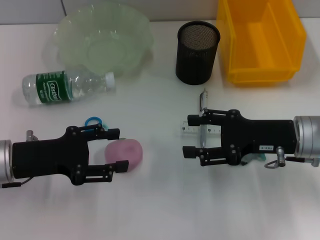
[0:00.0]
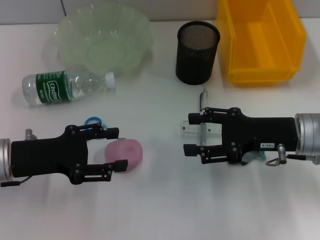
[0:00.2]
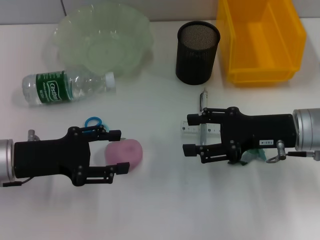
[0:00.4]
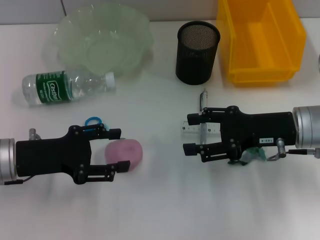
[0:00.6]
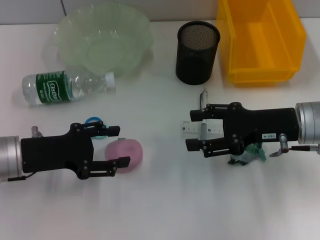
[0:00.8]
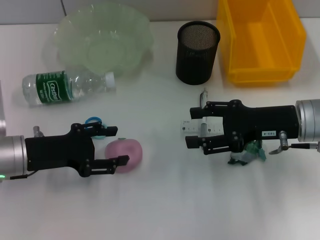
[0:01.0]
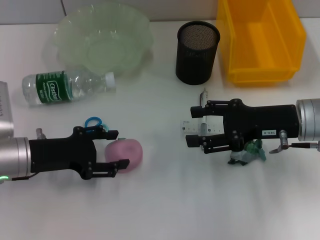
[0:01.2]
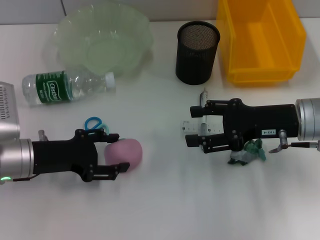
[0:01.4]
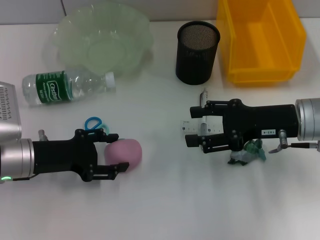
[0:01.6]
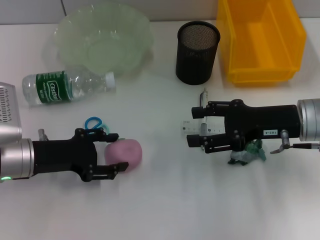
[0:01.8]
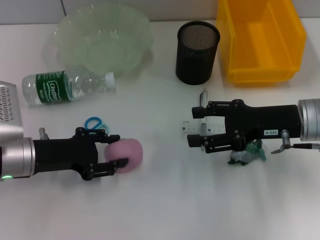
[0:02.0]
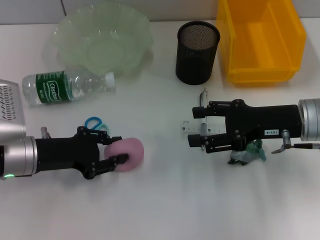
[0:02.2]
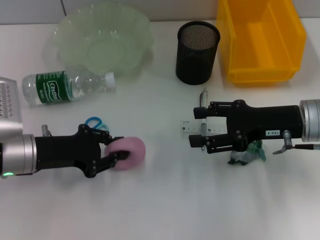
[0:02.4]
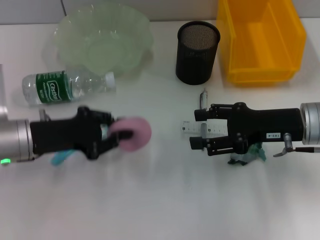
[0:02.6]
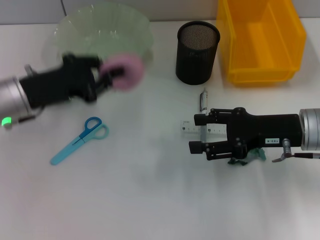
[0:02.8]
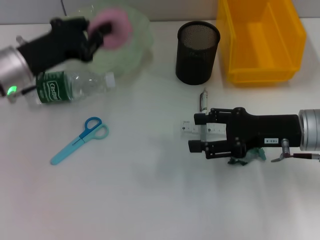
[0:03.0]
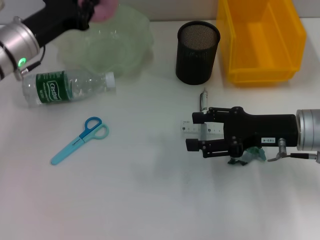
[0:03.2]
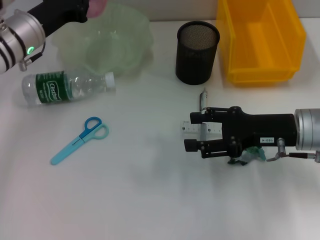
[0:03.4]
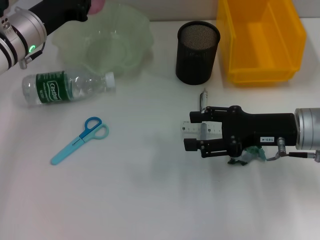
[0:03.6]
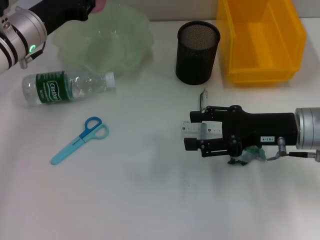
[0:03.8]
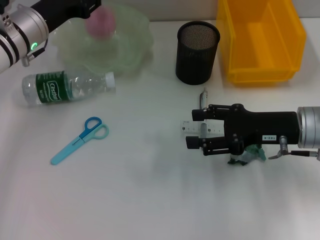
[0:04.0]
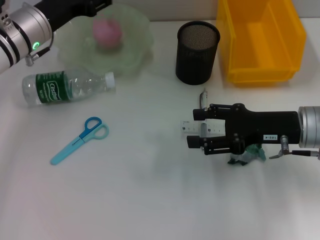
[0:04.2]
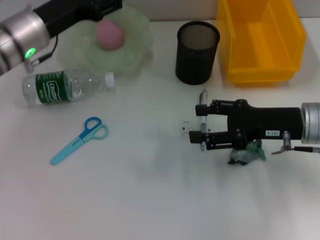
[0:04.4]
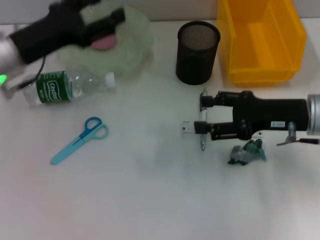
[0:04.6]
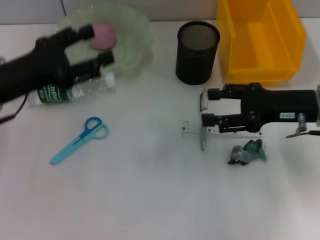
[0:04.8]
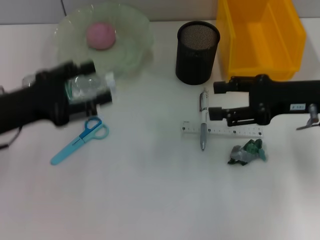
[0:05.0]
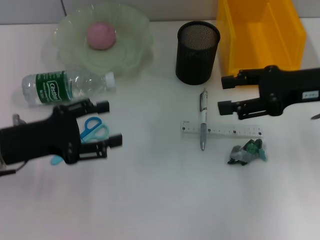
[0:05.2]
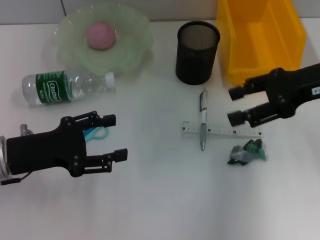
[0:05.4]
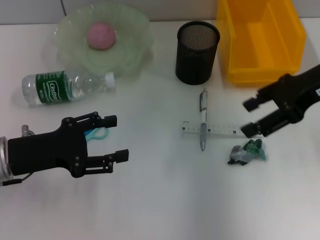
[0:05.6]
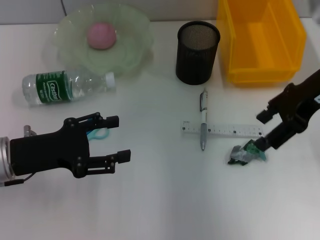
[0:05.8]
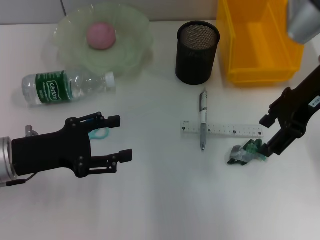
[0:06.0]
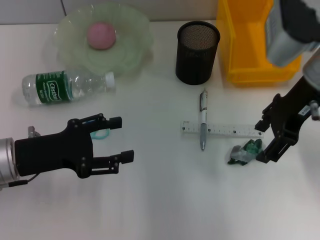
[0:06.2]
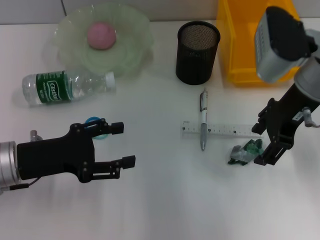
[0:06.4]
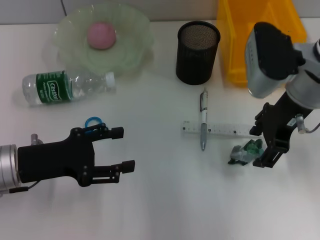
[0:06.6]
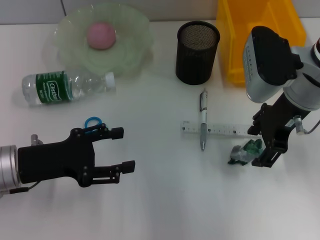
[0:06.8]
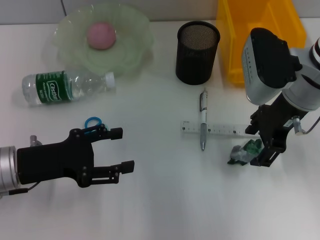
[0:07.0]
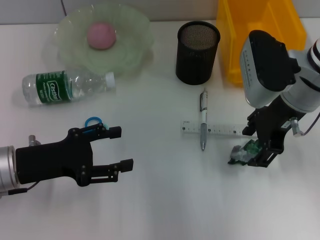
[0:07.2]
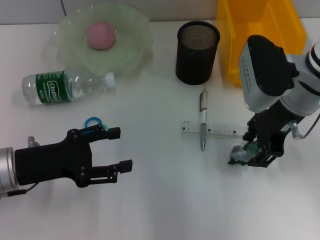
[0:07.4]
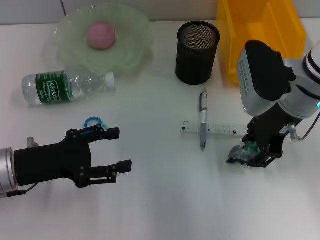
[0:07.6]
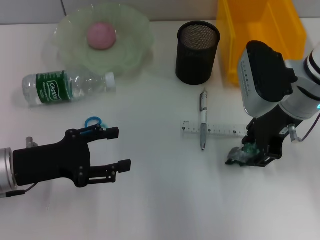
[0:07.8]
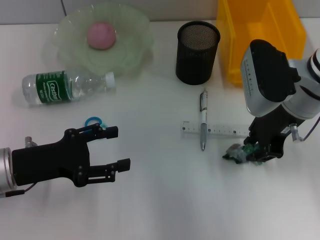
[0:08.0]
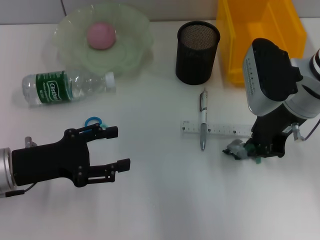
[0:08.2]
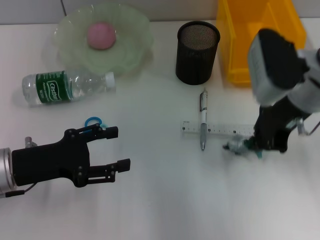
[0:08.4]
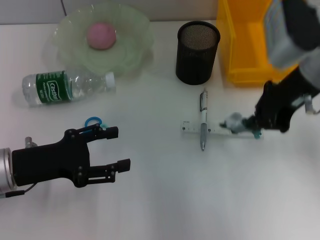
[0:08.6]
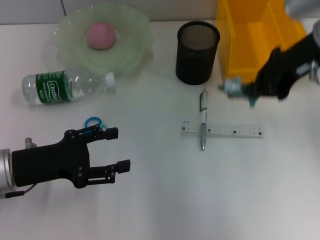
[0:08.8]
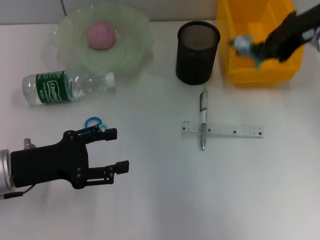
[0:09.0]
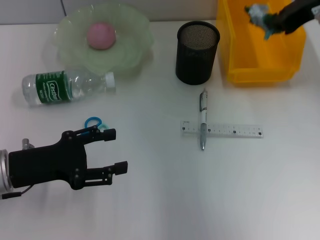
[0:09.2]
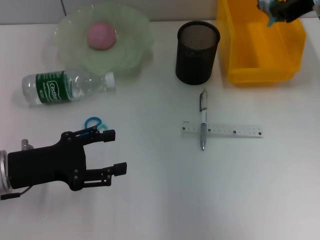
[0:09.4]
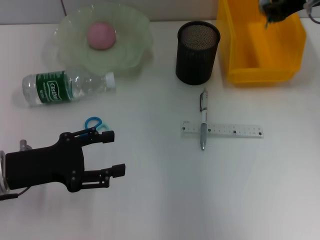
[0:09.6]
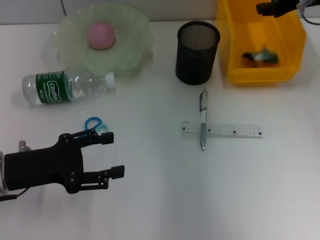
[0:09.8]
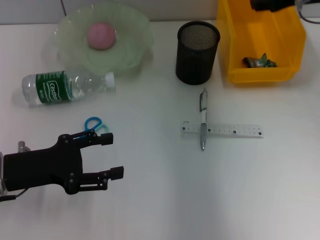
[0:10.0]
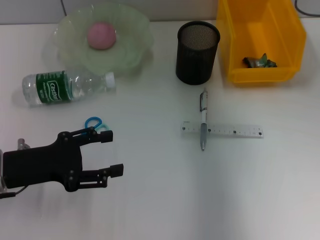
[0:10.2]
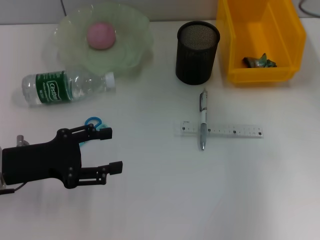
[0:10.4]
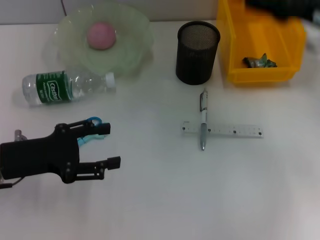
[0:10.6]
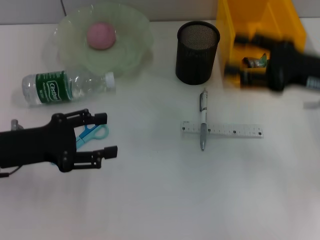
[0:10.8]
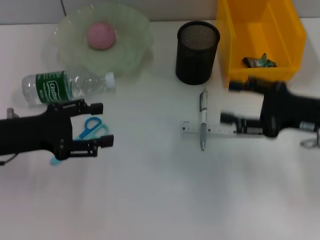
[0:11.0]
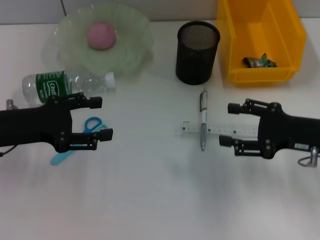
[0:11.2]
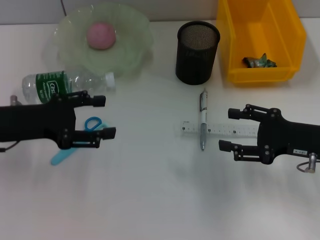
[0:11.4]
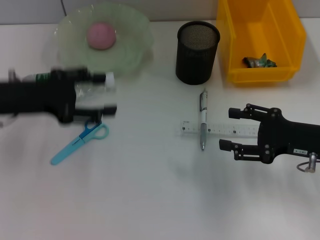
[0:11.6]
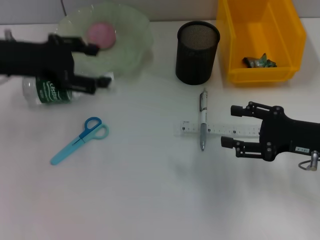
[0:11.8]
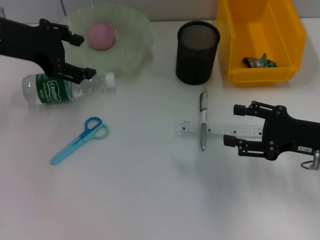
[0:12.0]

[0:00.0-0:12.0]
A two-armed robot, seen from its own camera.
Step, 0.0 to 2.2 s: Grab the peach with the left hand.
Step, 2.4 to 4.0 s: Place the peach into the fruit bowl with the left hand.
Step, 4.4 to 8.2 s: Grab the plastic with the right hand.
Step, 8.4 to 9.8 s: Place the plastic into the trash can with the right hand.
0.0 to 1.6 s: The grippers make only small movements.
1.6 to 3.0 s: The left gripper is displaced forward and upward by some 10 cm, and closes its fingers.
3.0 to 4.4 s: The left gripper opens its fingers.
4.4 to 6.0 s: The left gripper is displaced backward and downward by roughly 15 cm. Meanwhile the right gripper shifts about 15 cm upward and forward.
6.0 to 7.6 s: The right gripper moves downward, approximately 5 cm.
7.6 to 9.0 s: The right gripper is displaced upward by some 10 cm, and closes its fingers.
9.0 to 10.4 s: The right gripper ends up roughly 5 cm from where it was, and opens.
10.4 to 12.0 s: The left gripper is displaced upward and forward by roughly 20 cm, while the right gripper is displaced downward and backward by approximately 20 cm.

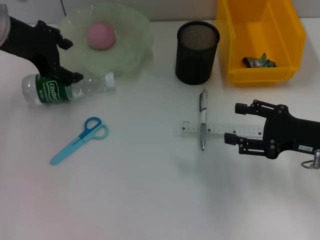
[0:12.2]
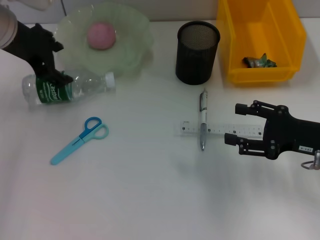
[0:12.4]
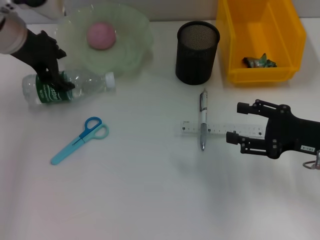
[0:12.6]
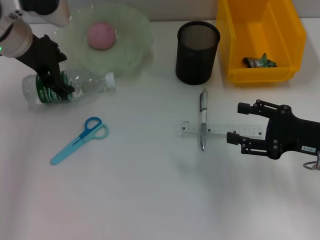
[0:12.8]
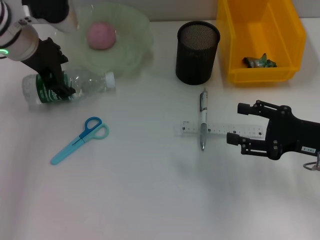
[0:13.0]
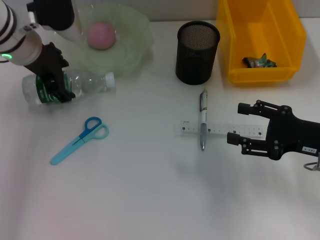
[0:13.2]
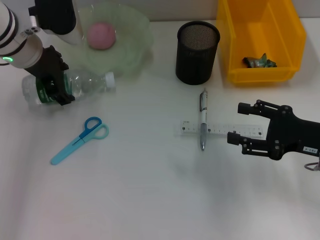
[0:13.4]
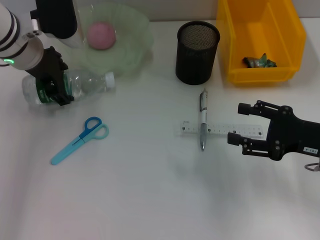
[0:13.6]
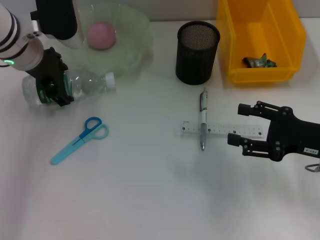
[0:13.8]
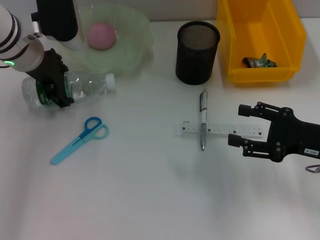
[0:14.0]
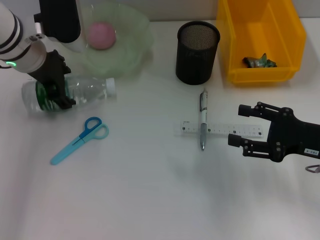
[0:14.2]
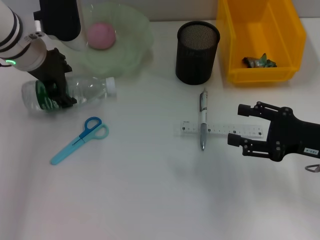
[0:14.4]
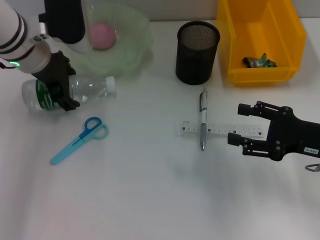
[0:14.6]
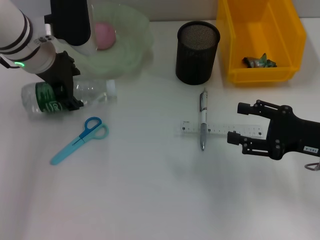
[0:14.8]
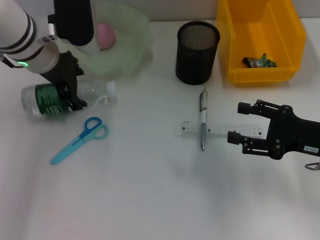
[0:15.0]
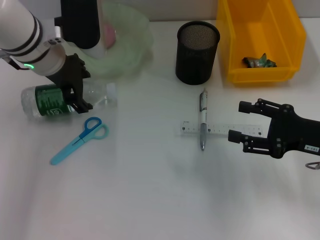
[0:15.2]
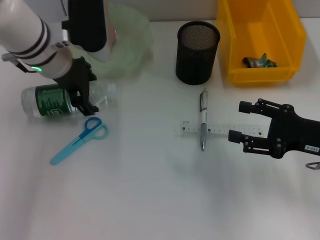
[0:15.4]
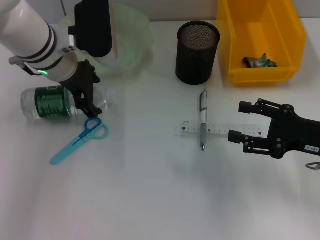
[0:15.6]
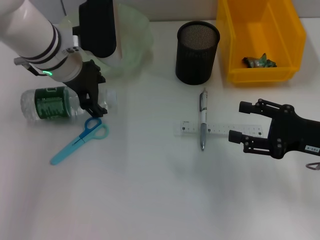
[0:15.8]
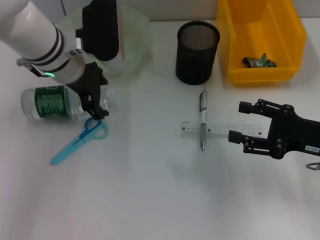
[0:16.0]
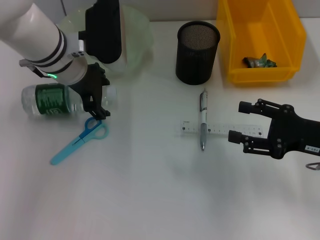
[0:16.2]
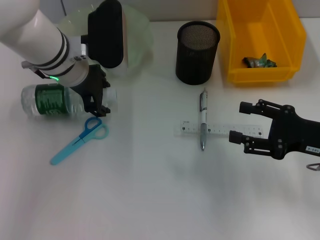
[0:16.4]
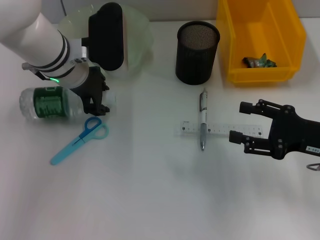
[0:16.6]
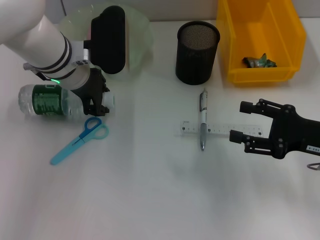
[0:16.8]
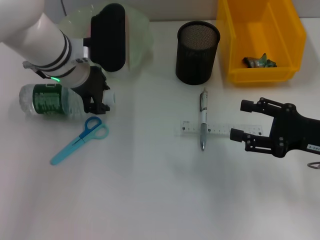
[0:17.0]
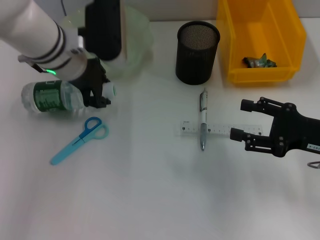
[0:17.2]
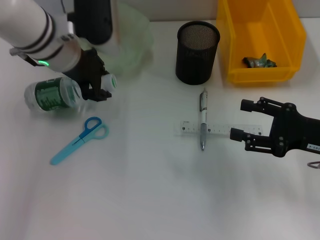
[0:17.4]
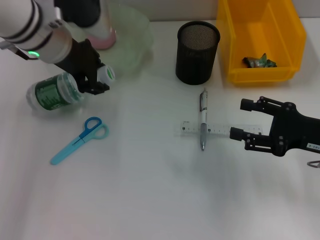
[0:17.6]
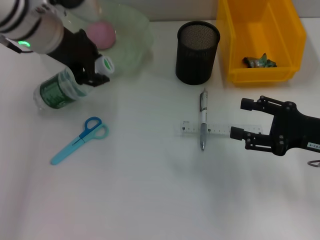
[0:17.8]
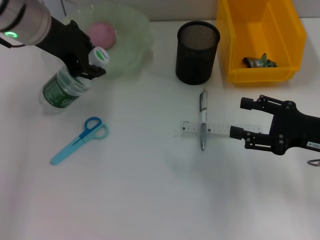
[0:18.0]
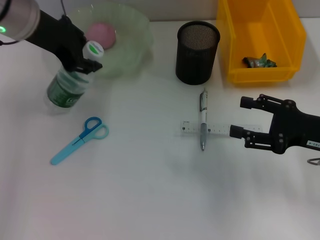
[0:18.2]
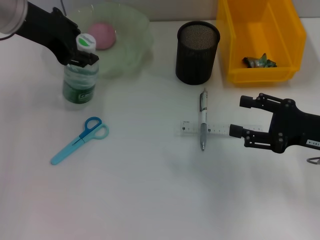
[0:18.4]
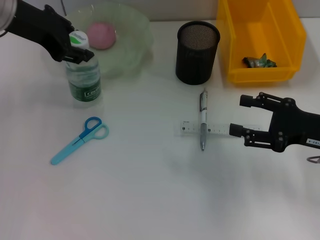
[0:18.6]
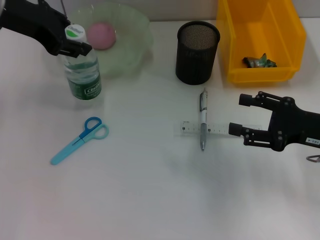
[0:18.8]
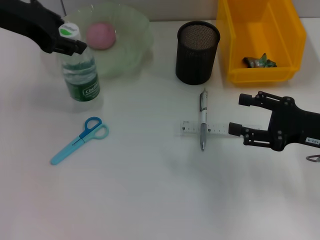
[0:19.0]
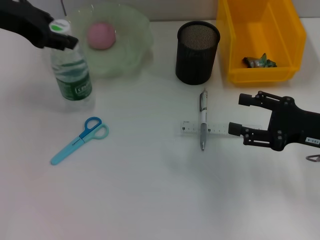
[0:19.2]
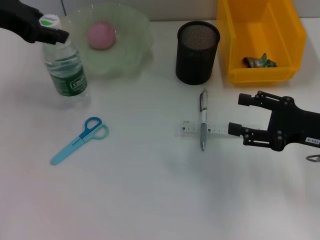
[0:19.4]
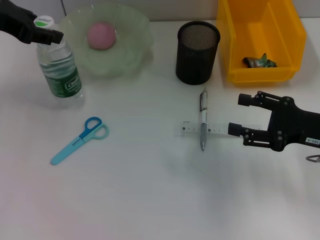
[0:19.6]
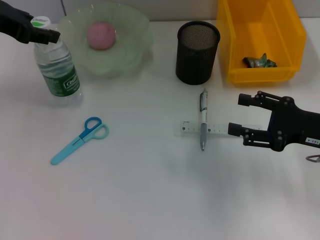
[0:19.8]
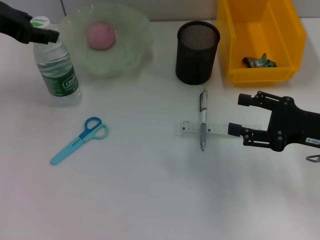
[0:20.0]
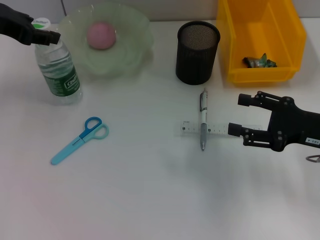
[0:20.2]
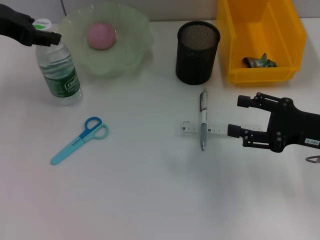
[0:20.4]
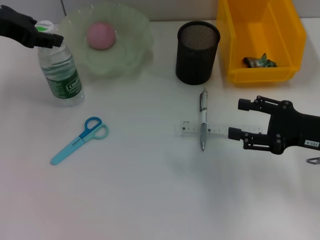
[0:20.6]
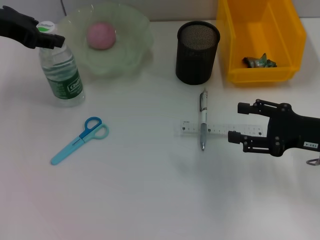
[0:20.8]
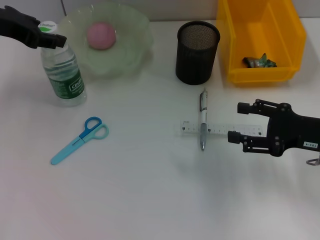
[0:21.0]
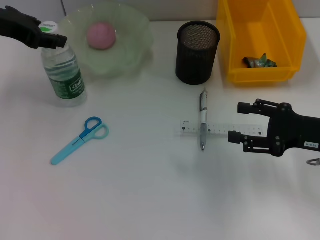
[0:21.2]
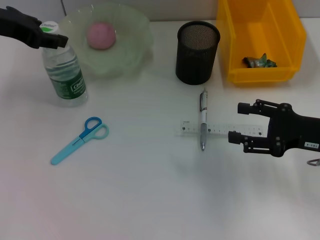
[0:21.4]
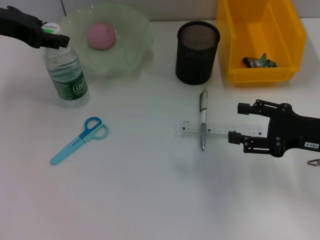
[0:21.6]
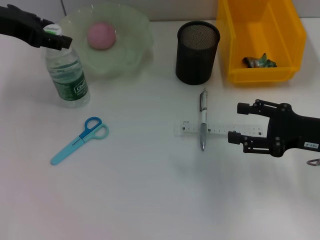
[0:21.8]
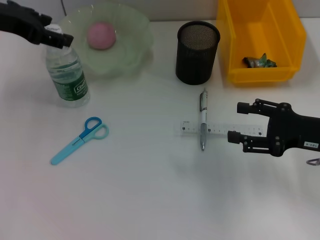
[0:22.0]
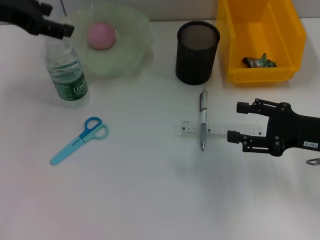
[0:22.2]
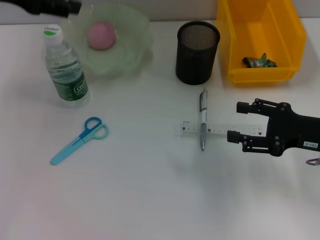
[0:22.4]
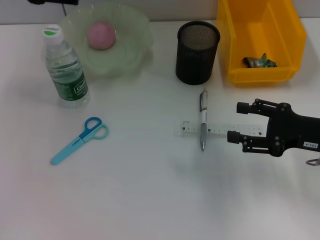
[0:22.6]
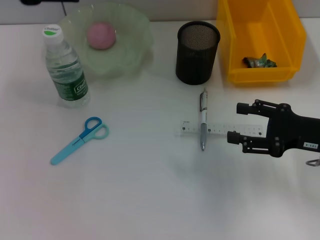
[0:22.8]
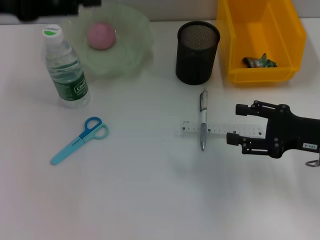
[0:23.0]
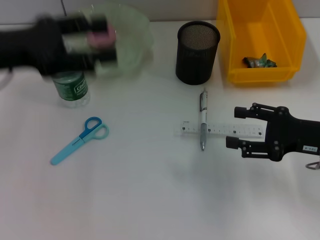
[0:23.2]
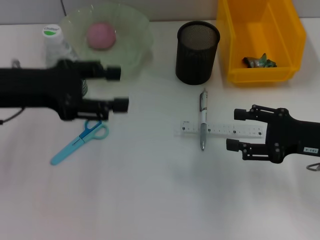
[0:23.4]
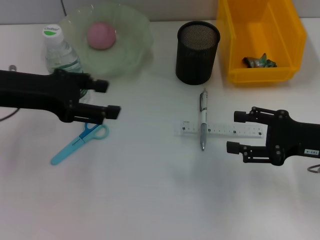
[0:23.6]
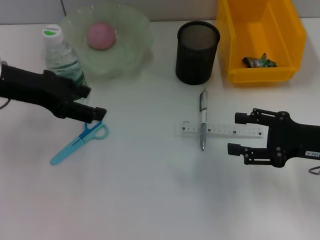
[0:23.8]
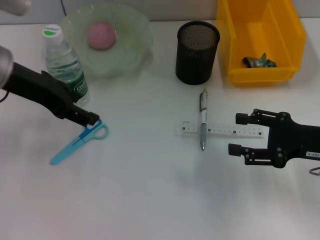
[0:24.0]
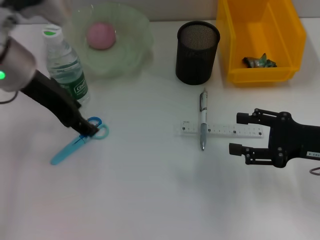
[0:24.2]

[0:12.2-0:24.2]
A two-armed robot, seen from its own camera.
Step, 12.2 to 16.4 s: Grab the water bottle with the left hand.
Step, 16.8 to 21.8 s: Place the water bottle on the table with the left hand.
12.2 to 13.8 s: The left gripper is displaced downward by about 5 cm.
13.8 to 15.2 s: The grippers make only small movements.
15.2 to 16.6 s: The grippers make only small movements.
16.6 to 18.2 s: The left gripper moves upward and to the left, about 10 cm, and closes up.
18.2 to 19.8 s: The left gripper is displaced to the left by approximately 10 cm.
19.8 to 21.2 s: The grippers make only small movements.
21.2 to 22.6 s: The left gripper travels upward by some 5 cm, and opens.
22.6 to 24.2 s: The left gripper goes approximately 10 cm downward and to the right.
